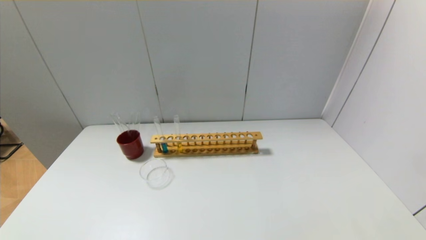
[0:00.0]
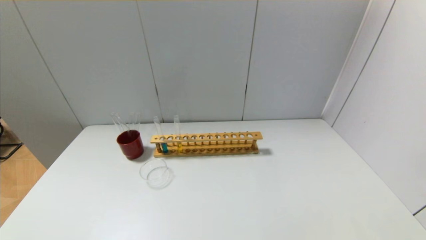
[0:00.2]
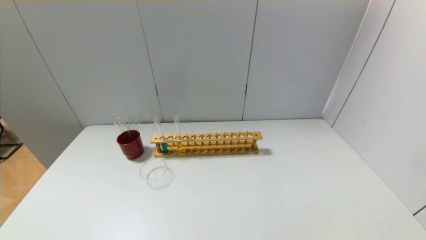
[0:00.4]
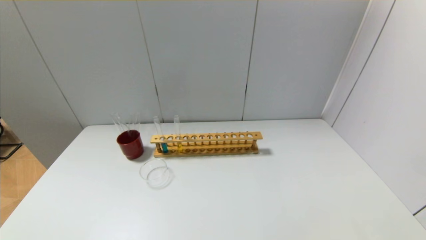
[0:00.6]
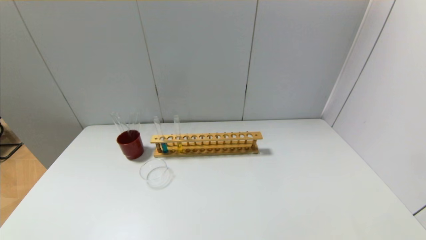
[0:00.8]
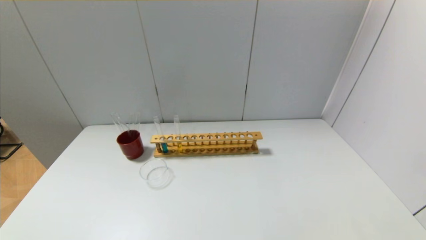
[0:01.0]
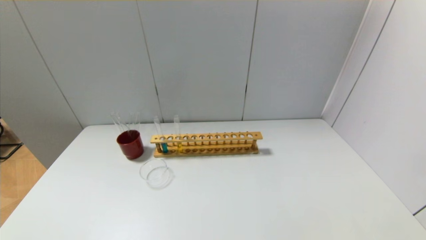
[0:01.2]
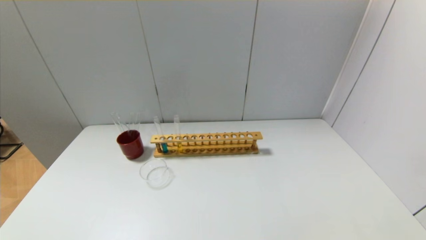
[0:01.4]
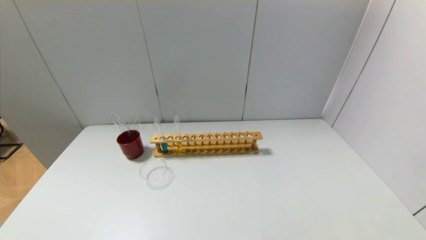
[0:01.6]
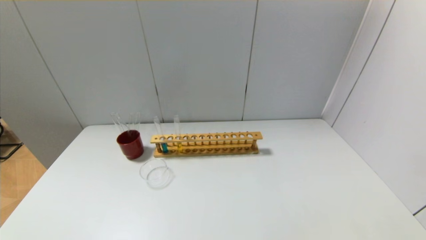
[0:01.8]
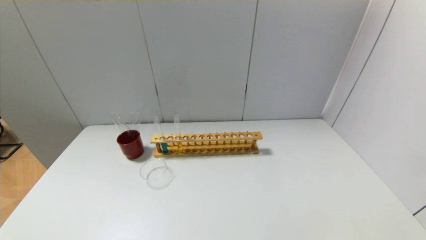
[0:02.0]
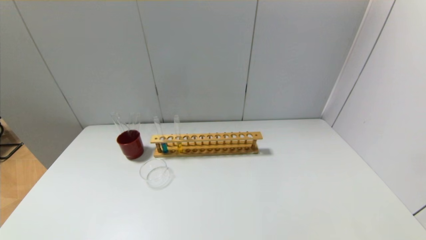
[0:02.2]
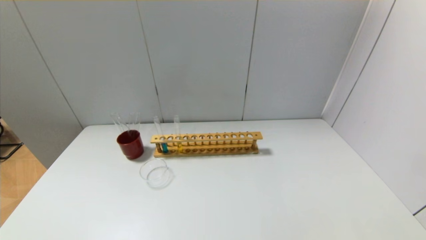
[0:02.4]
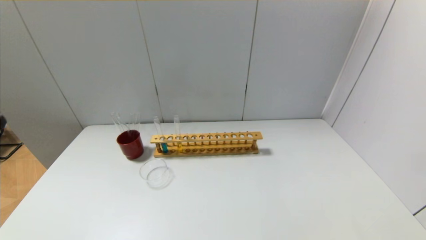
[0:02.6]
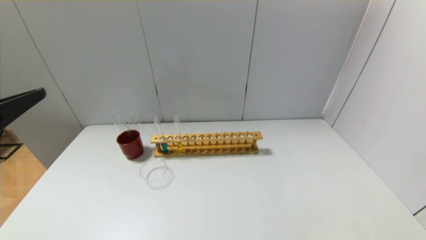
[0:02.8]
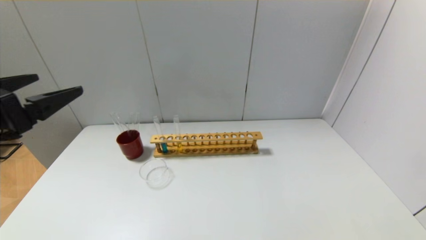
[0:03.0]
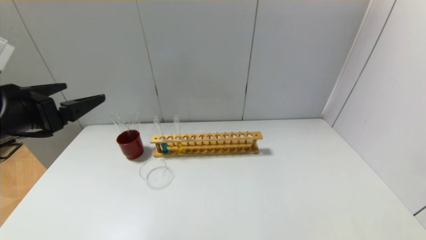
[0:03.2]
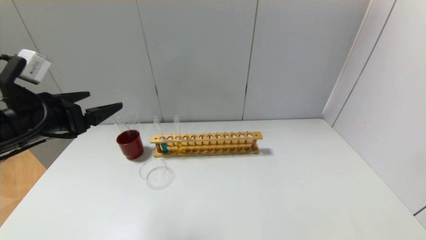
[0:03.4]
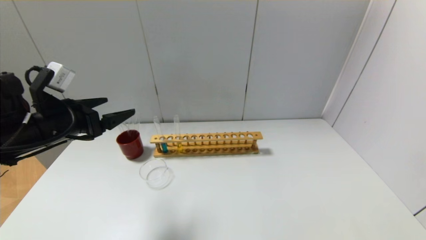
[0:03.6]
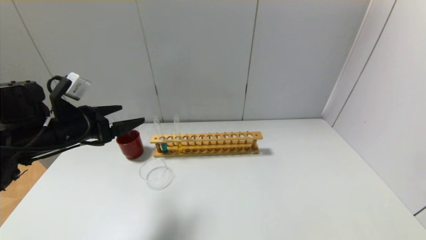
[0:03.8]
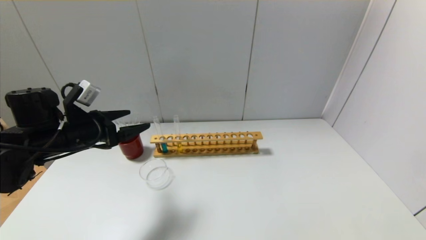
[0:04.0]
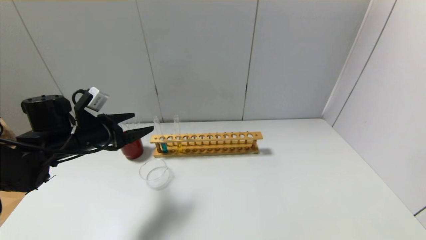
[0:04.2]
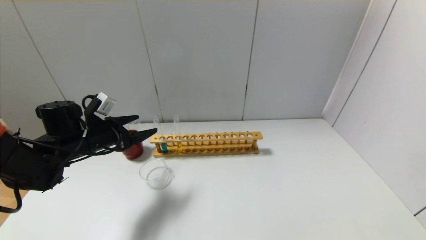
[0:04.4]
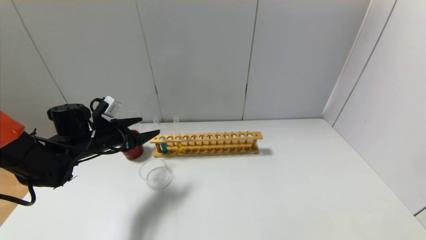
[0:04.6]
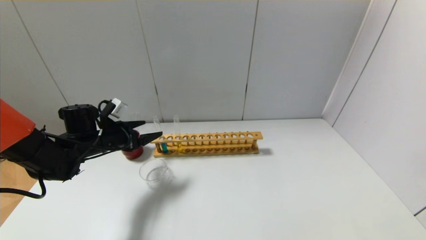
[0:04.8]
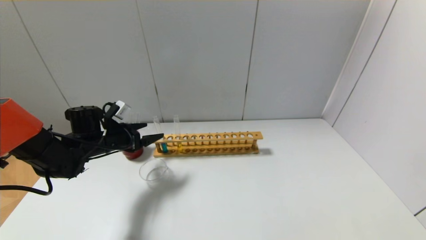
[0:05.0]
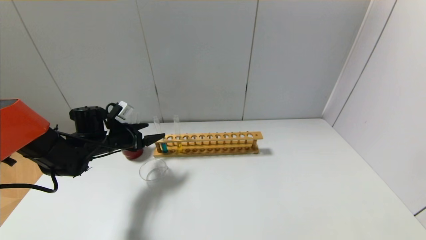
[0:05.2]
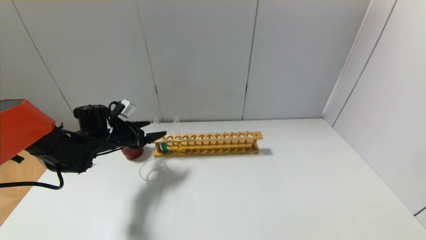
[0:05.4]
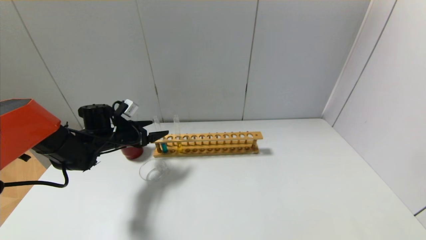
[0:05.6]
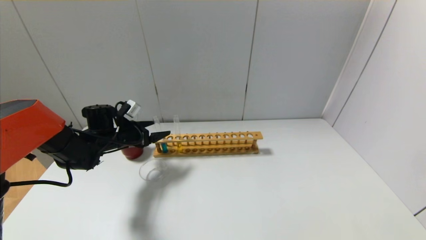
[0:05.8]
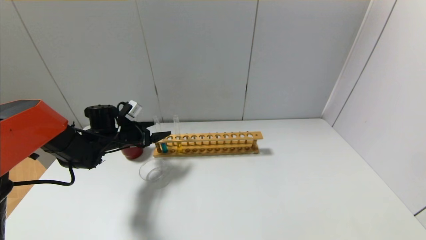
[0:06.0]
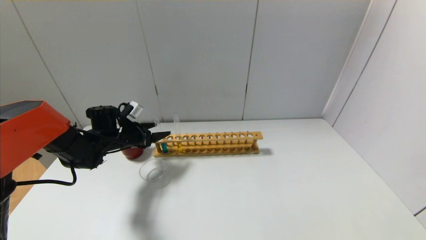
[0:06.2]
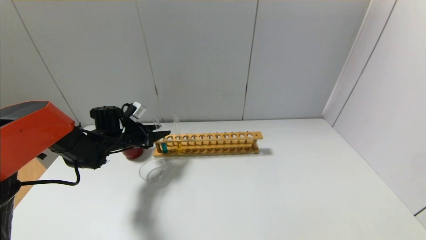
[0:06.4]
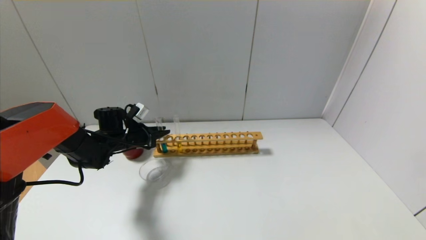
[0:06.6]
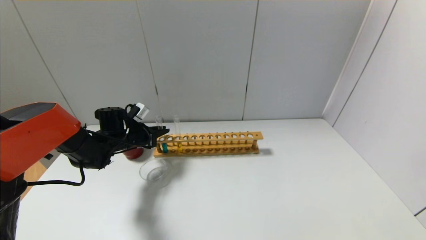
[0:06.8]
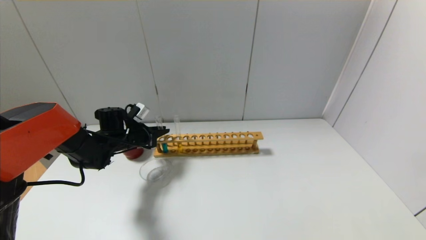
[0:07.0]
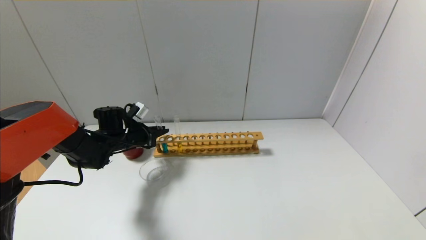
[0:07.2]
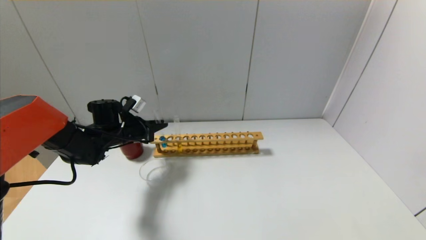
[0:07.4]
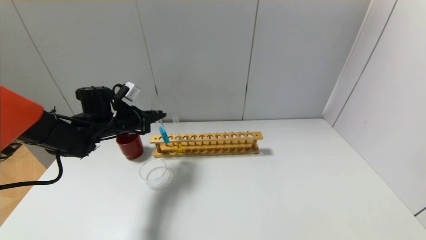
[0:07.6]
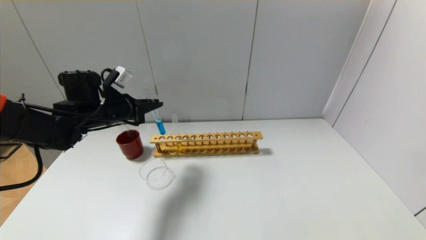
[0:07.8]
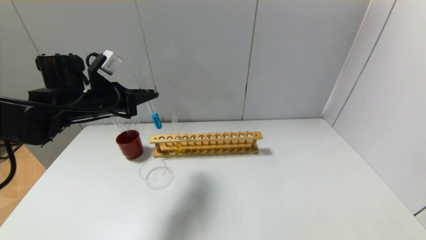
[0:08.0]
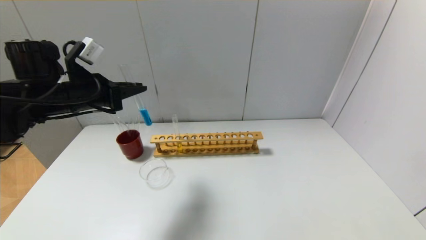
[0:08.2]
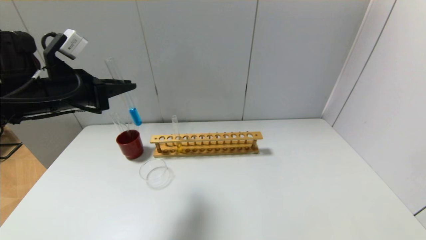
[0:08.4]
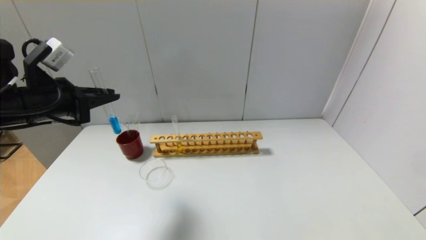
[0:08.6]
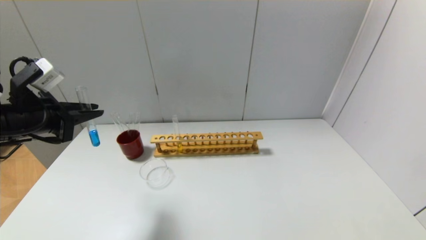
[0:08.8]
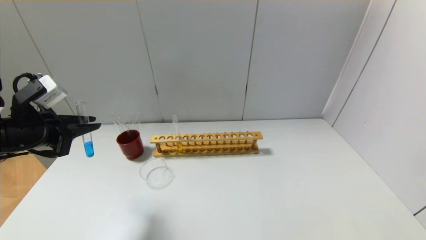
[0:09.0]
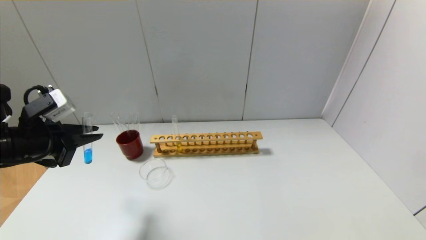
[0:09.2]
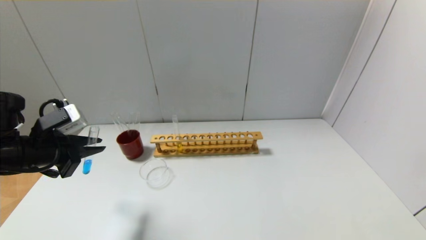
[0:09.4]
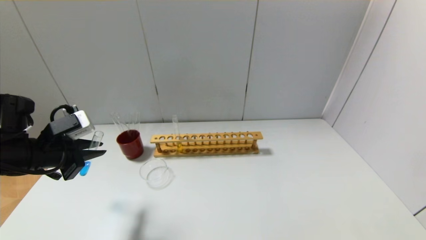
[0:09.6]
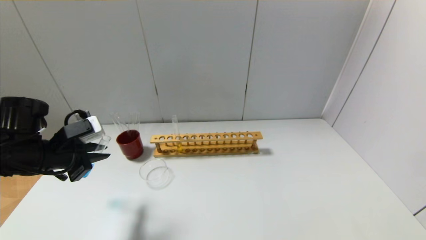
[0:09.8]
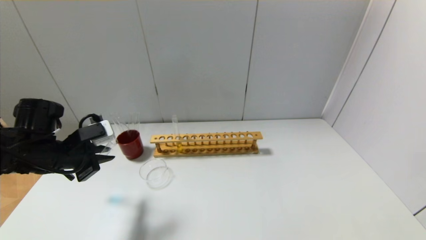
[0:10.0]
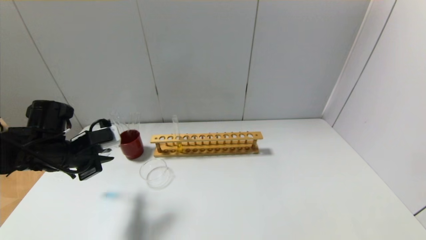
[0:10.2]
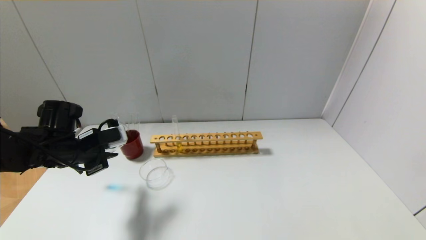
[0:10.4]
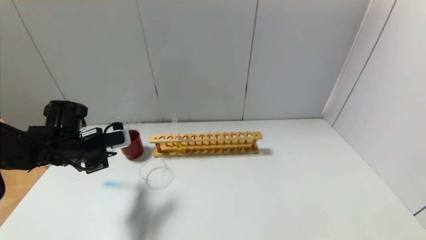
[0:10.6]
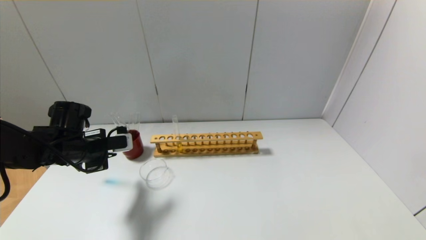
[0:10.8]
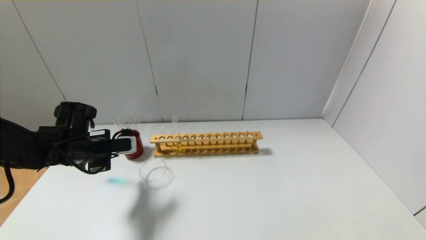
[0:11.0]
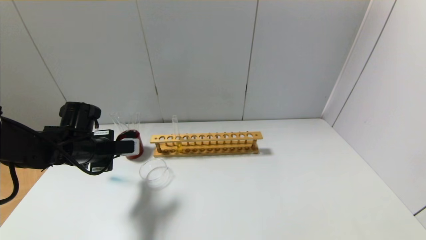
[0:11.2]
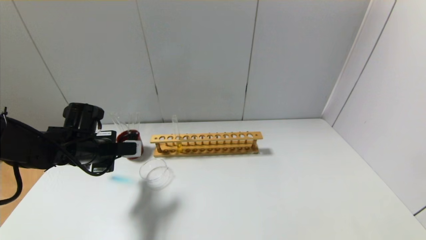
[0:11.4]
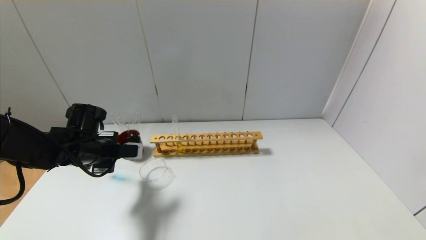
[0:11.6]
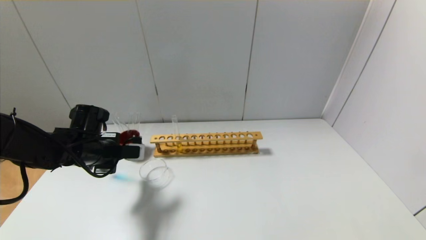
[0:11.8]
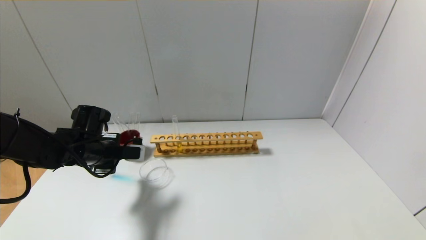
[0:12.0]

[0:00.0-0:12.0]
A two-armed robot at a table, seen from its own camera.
Step, 0:00.0 to 0:06.8: Grasp the blue reagent with the left gripper.
0:00.0 to 0:01.6: Neither gripper changes place.
0:01.6 to 0:03.0: The left gripper travels upward and forward by about 25 cm.
0:03.0 to 0:04.4: The left gripper heads forward and downward, covering some 25 cm.
0:04.4 to 0:06.0: The left gripper is displaced forward by approximately 10 cm.
0:06.0 to 0:07.6: The left gripper heads upward, covering about 5 cm, and closes its fingers.
0:07.6 to 0:09.0: The left gripper heads backward, to the left and upward, covering about 20 cm.
0:09.0 to 0:10.4: The left gripper moves downward and forward, about 10 cm.

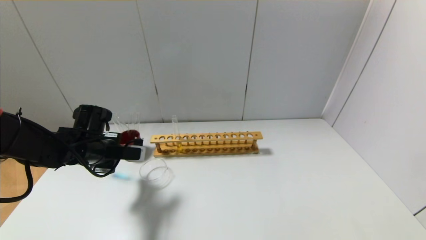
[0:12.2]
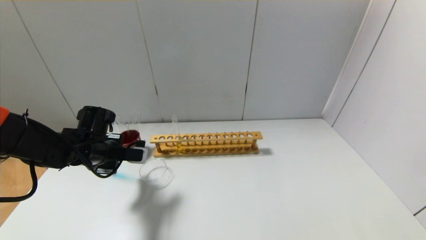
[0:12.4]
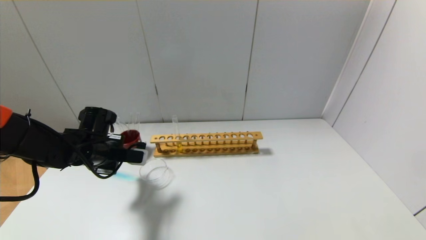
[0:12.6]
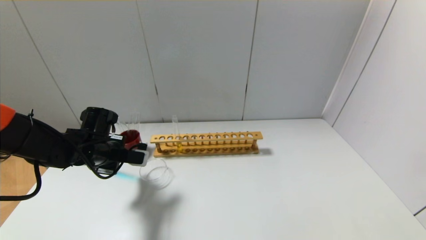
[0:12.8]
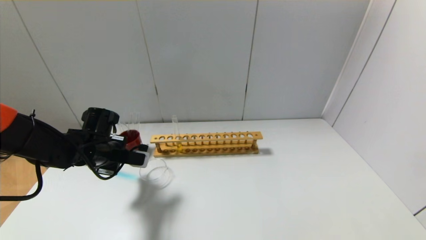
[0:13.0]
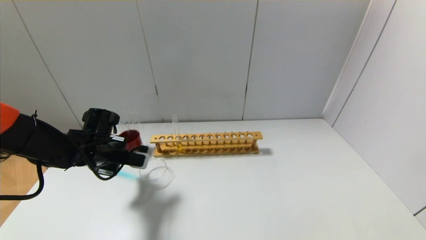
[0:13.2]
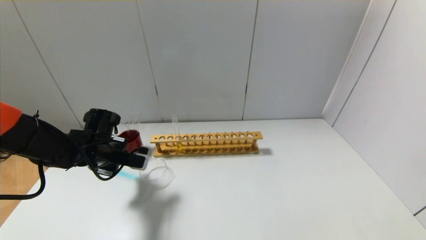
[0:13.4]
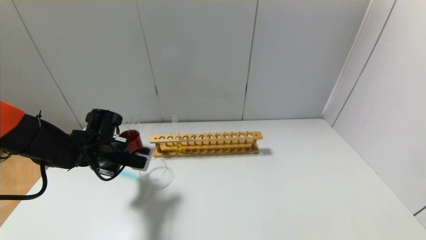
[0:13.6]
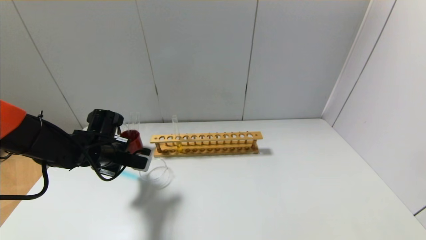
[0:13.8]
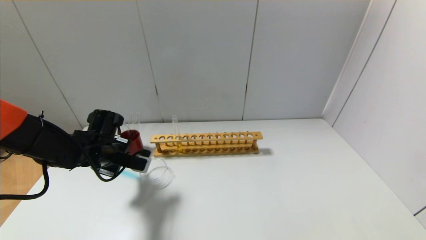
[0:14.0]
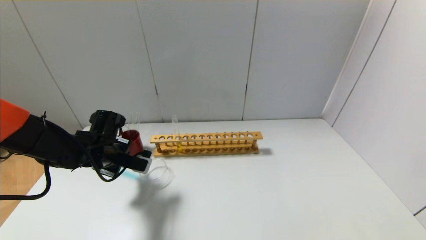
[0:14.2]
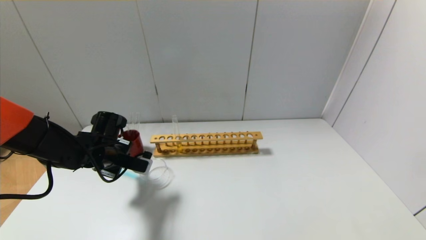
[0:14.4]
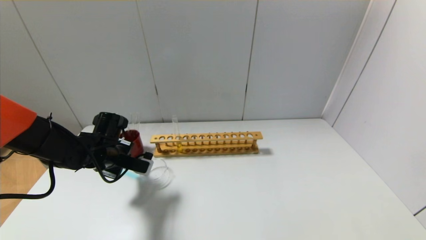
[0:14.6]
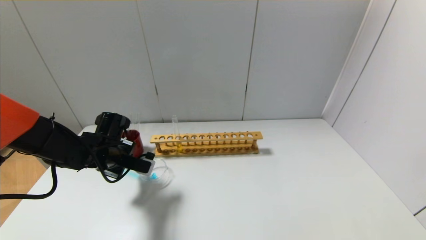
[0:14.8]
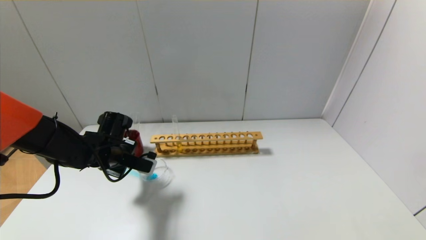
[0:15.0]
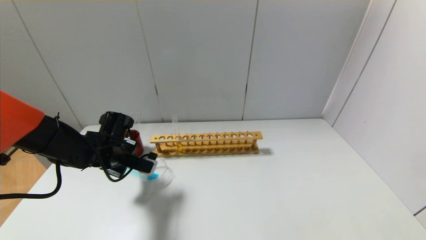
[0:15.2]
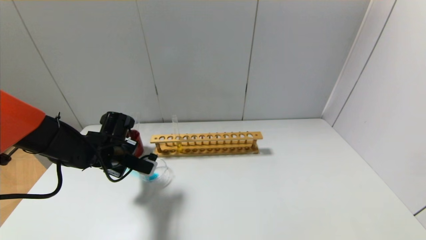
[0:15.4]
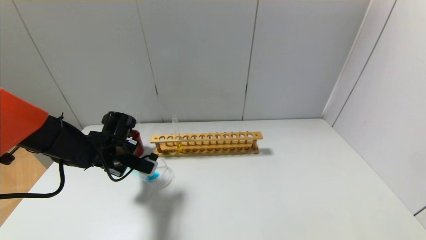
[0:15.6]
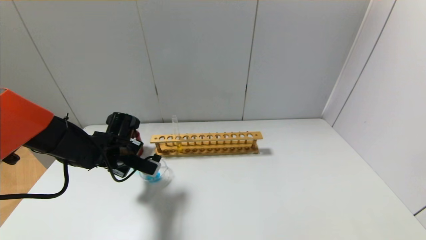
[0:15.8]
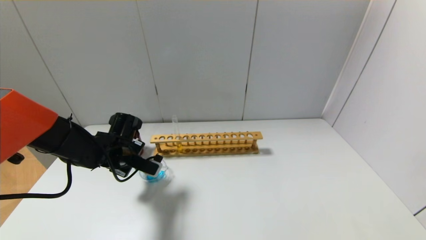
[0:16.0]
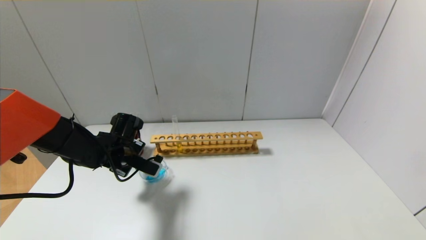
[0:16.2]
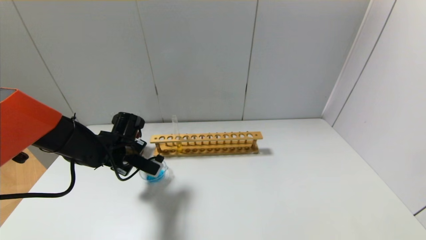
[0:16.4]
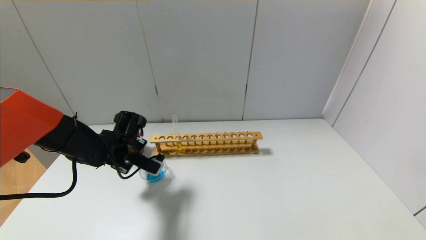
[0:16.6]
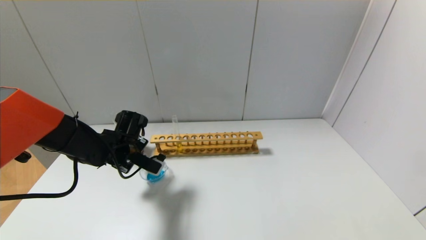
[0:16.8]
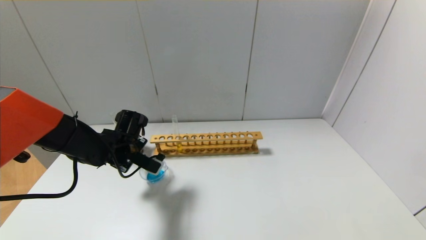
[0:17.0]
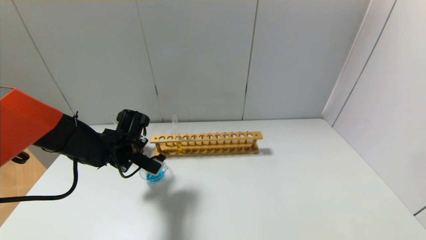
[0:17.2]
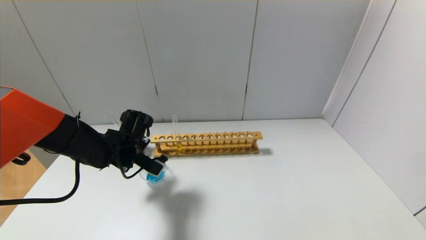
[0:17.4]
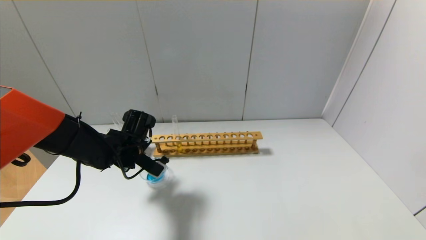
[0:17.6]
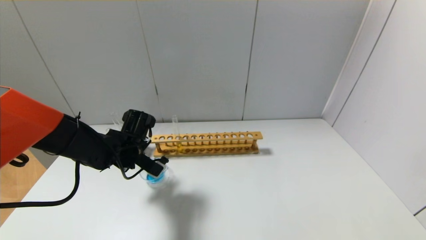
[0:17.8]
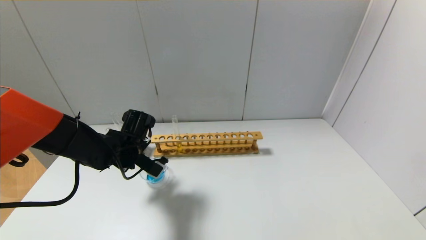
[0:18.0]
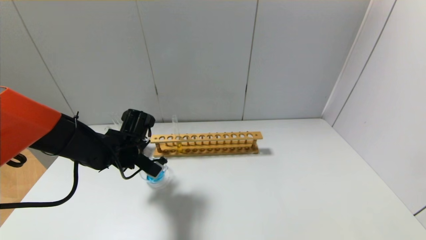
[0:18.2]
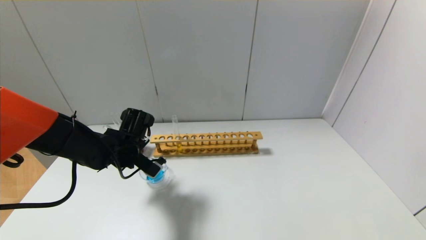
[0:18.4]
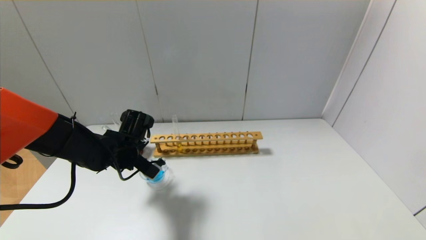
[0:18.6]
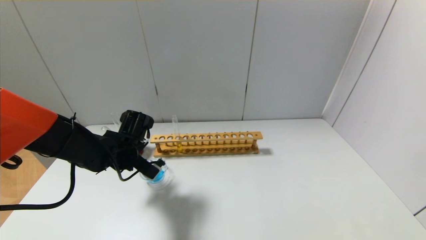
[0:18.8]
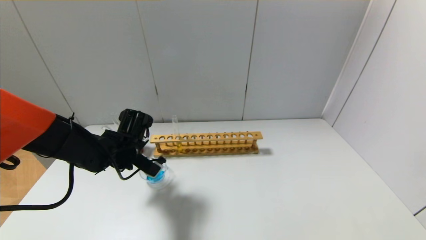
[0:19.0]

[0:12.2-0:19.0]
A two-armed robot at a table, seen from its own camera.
0:12.2 to 0:15.0: There are only small adjustments of the grippers.
0:15.0 to 0:16.2: There are only small adjustments of the grippers.
0:16.2 to 0:19.0: The grippers move only a little.
